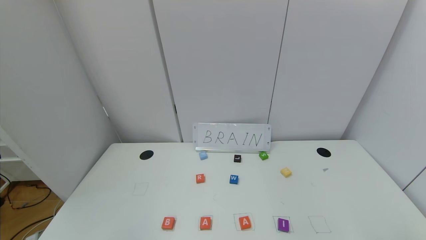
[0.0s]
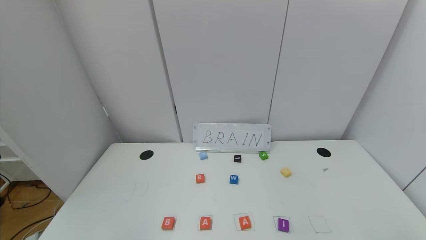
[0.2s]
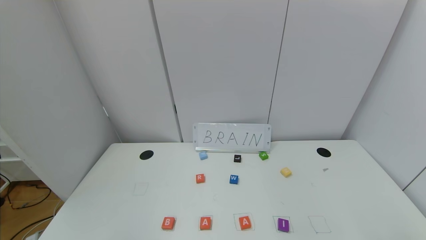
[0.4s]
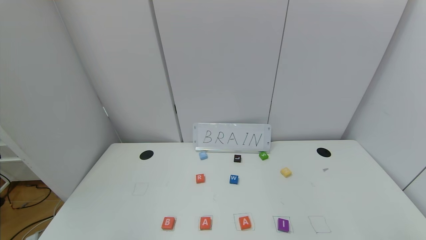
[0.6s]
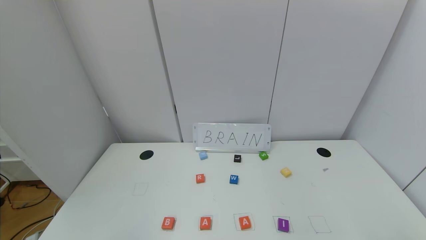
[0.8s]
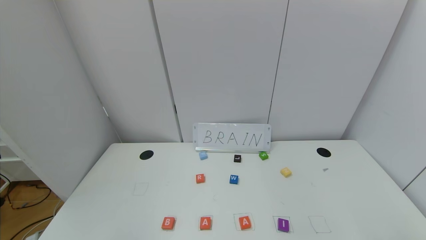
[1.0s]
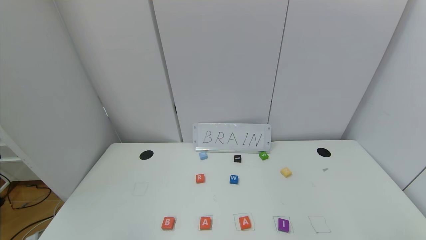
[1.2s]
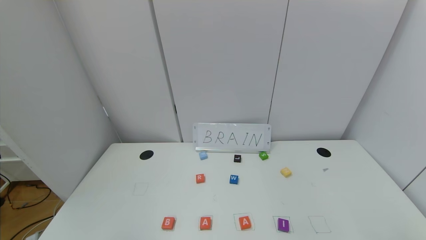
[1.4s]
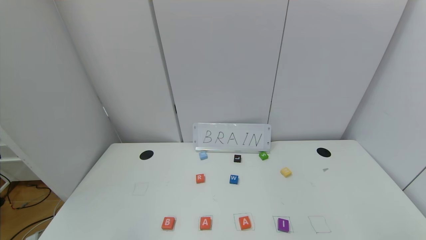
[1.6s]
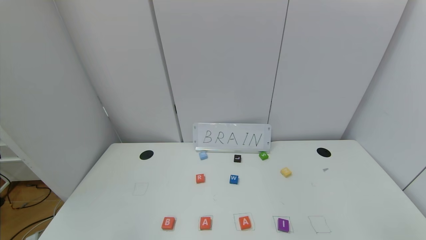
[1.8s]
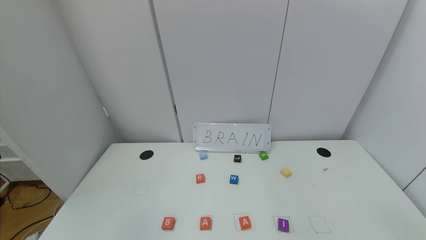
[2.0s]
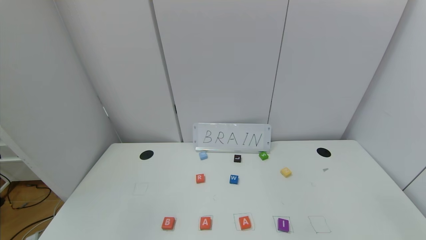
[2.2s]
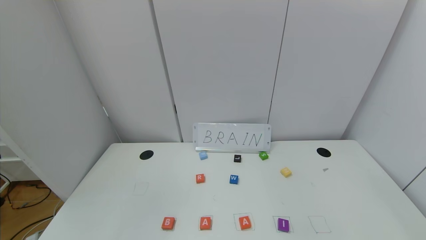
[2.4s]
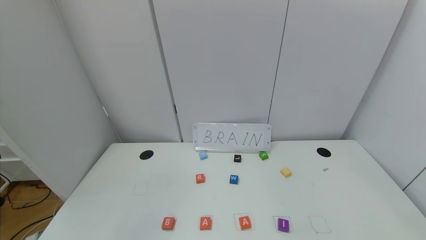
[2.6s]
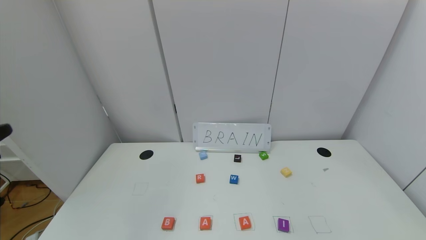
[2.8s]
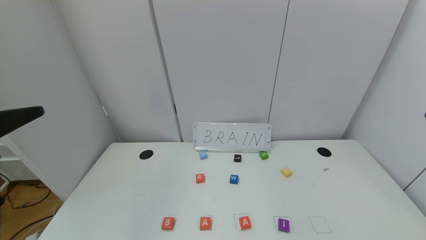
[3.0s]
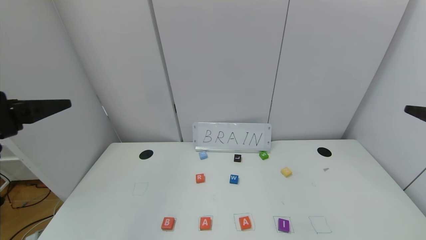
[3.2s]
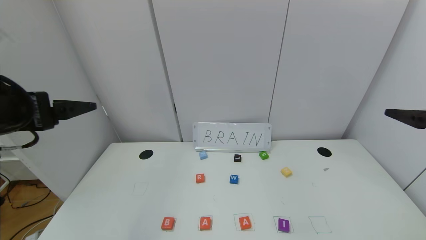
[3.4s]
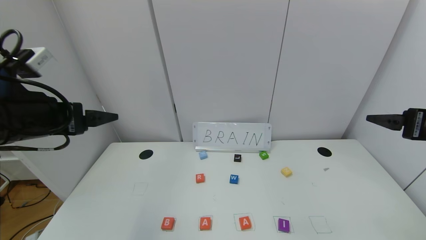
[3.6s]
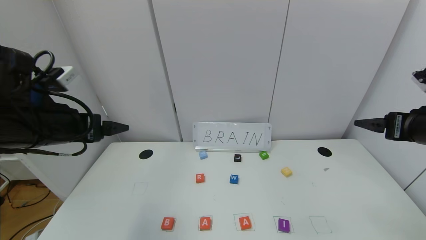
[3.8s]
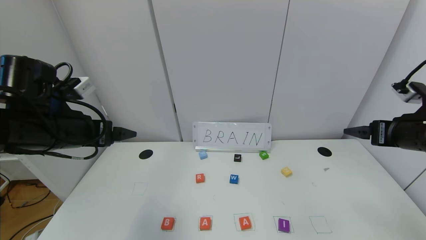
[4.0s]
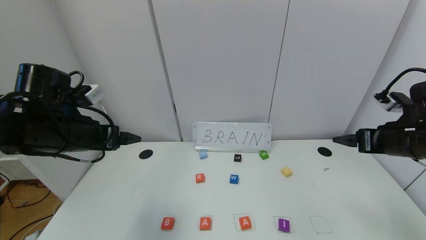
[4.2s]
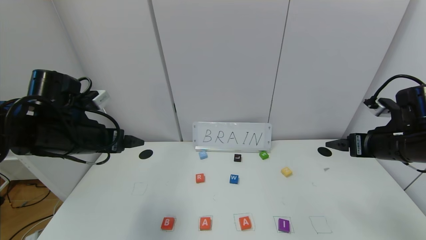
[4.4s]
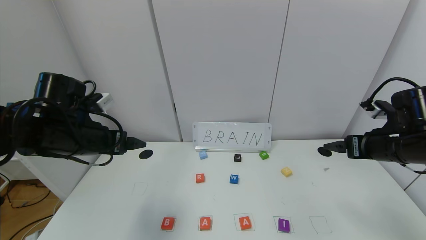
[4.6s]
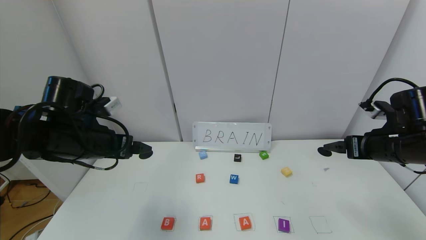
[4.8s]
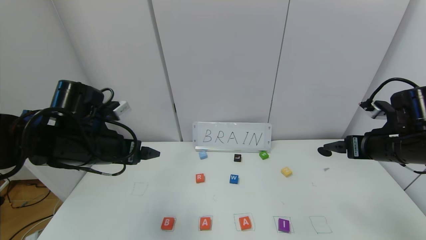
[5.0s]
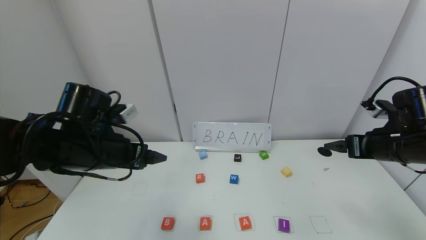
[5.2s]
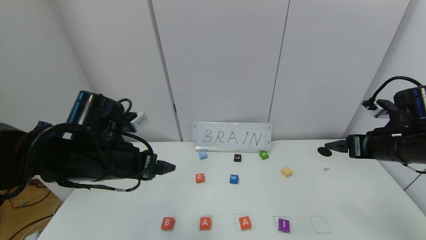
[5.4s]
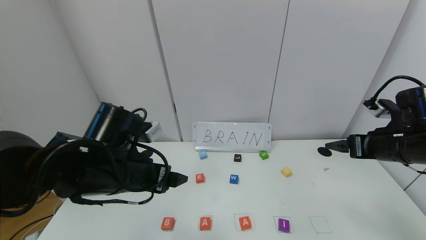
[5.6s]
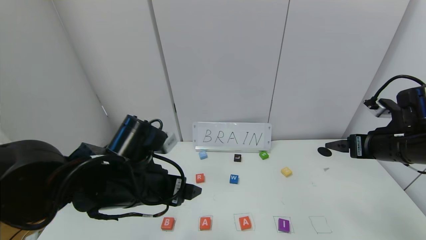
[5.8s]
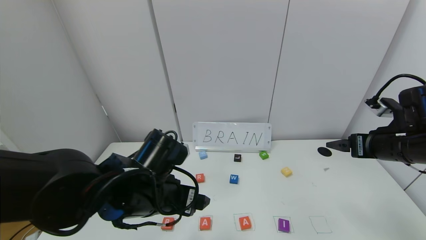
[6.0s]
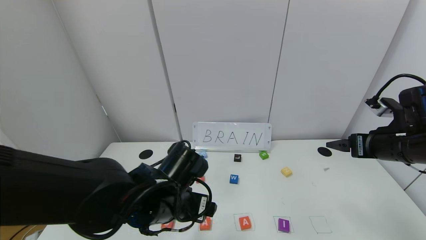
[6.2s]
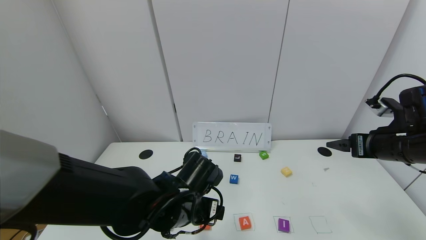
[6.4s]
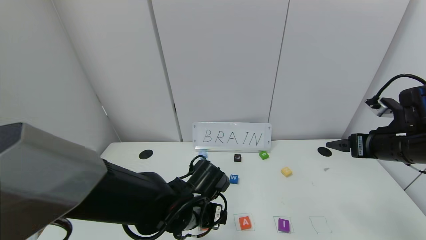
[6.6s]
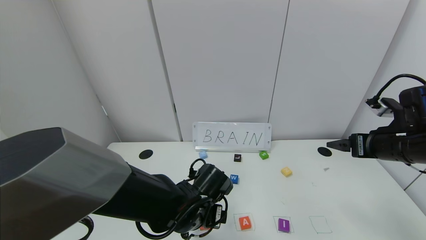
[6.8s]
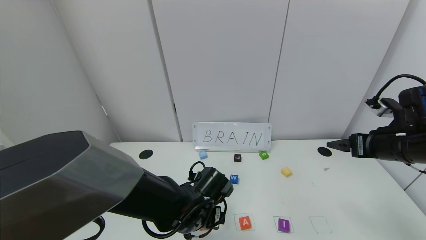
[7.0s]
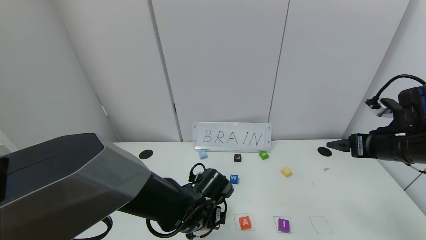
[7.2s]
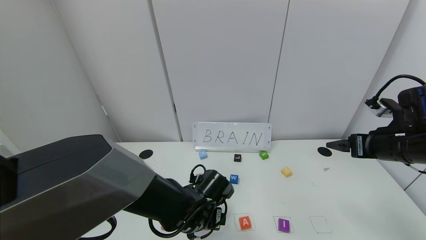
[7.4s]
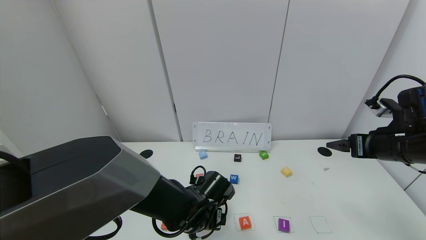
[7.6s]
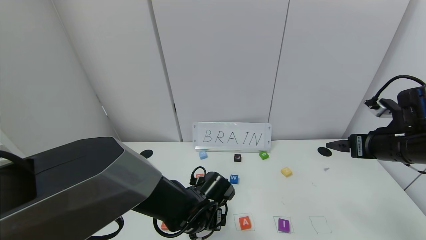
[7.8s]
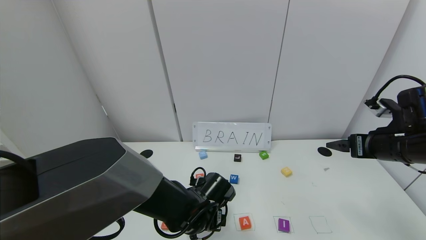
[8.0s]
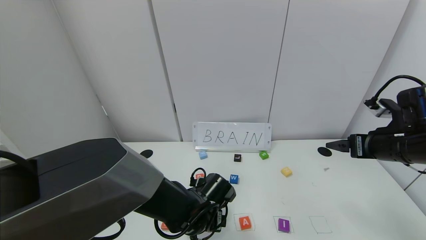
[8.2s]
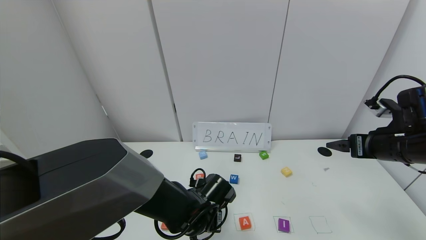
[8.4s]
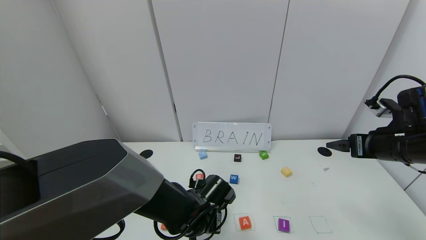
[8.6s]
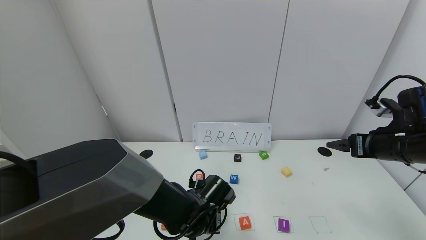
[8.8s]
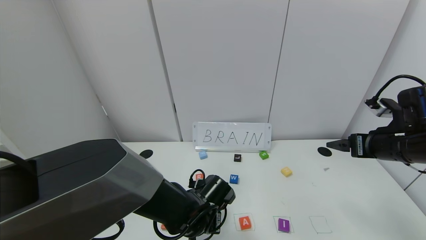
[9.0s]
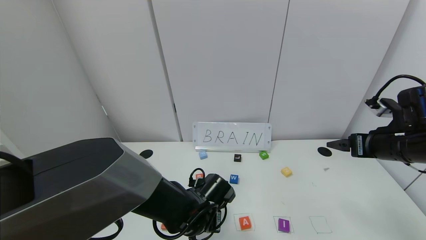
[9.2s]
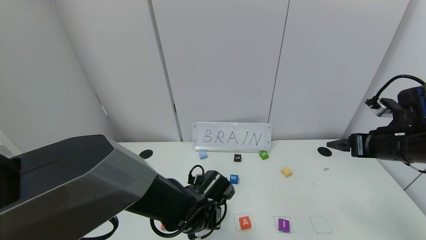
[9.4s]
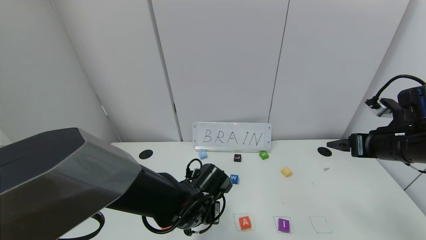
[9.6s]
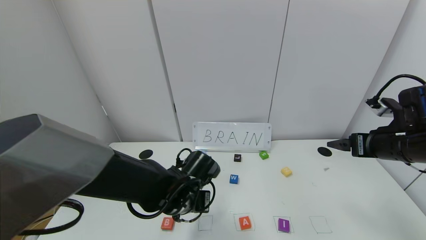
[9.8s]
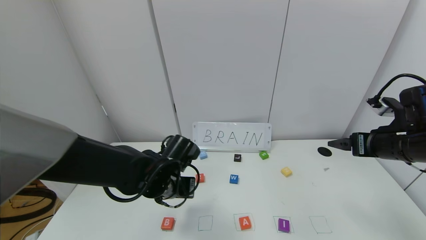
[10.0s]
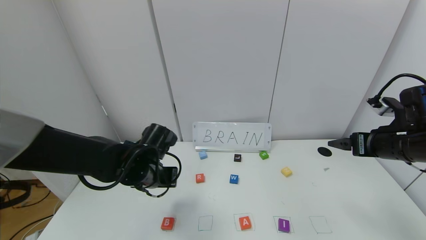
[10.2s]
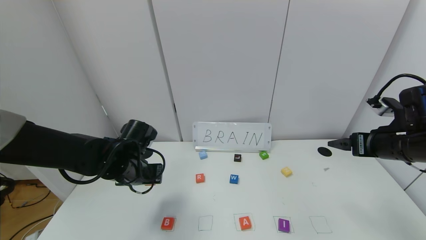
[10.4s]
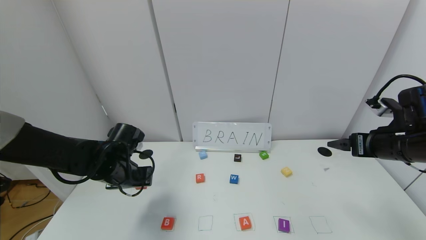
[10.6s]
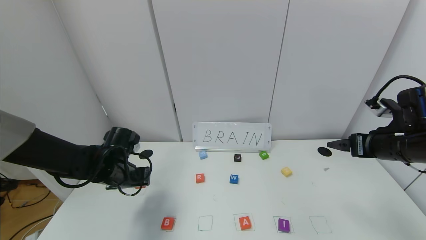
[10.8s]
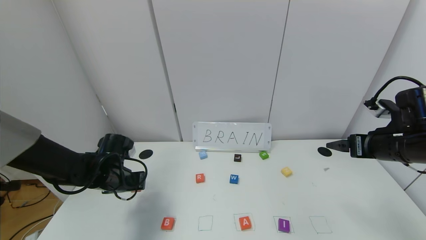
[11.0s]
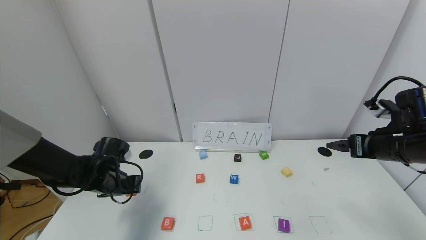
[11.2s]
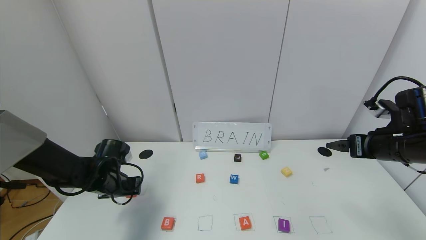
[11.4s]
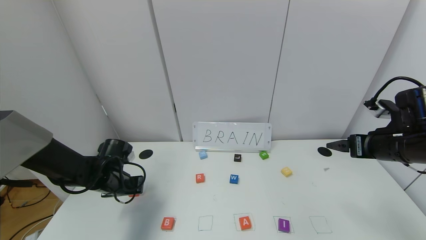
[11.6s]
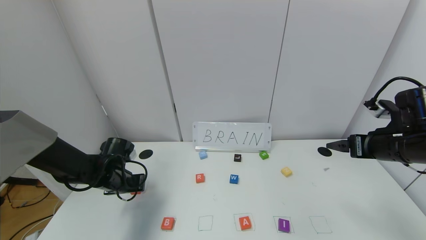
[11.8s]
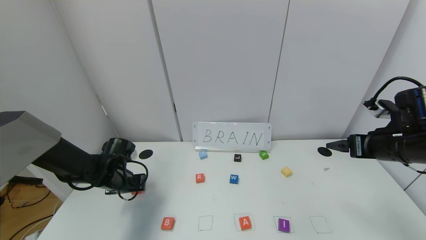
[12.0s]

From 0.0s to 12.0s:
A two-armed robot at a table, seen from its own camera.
Task of the whole recording: use the gripper to find blocks with the letters b, a, a, and i on the table and arrange them into BAAI, then find r and N and turn the arranged baai into brian.
From 1.6s to 3.0s: The left gripper is displaced upward and forward by approximately 25 cm.
From 3.0s to 4.4s: Both grippers travel together forward and downward, some 20 cm.
From 4.4s to 6.0s: The left gripper is displaced to the right and downward by some 15 cm.
From 6.0s to 7.6s: The left gripper is displaced downward and to the right by approximately 15 cm.
From 7.6s to 9.0s: The left gripper closes up.
From 9.0s to 10.4s: The left gripper travels to the left and upward by some 20 cm.
From 10.4s to 12.0s: The left gripper heads downward and to the left, covering roughly 10 cm.

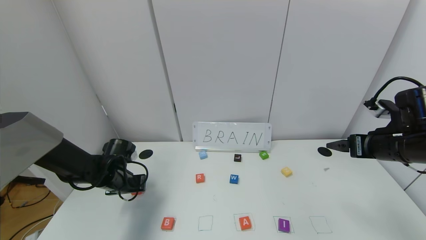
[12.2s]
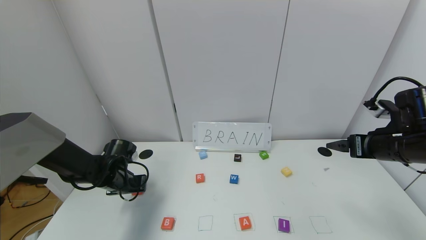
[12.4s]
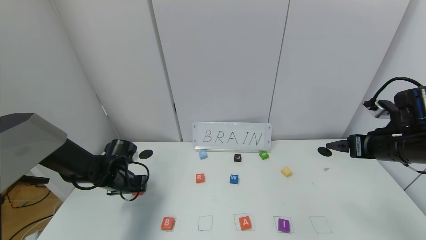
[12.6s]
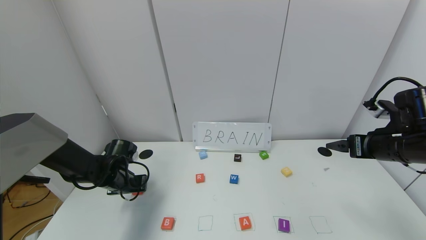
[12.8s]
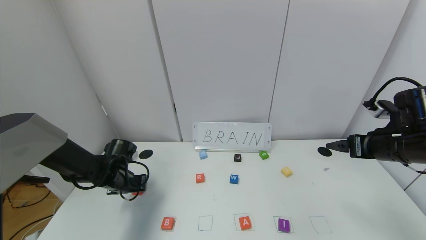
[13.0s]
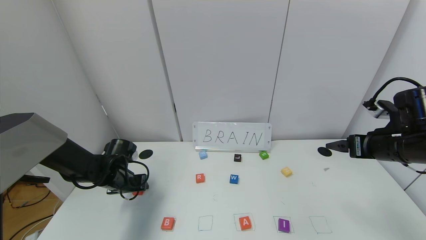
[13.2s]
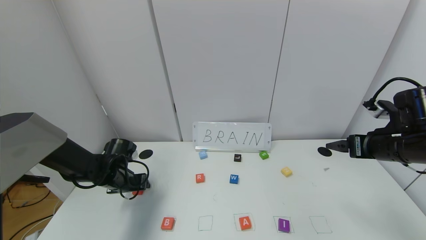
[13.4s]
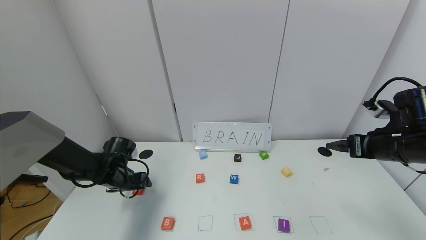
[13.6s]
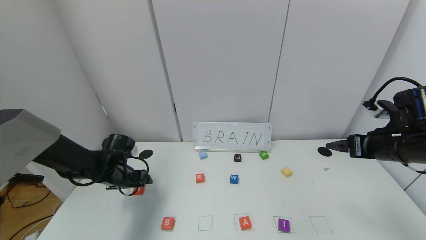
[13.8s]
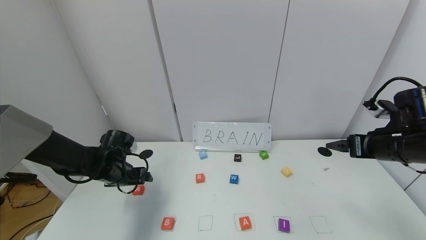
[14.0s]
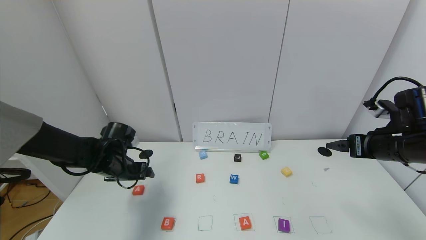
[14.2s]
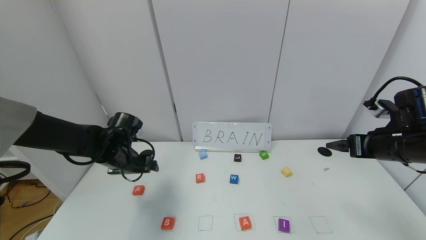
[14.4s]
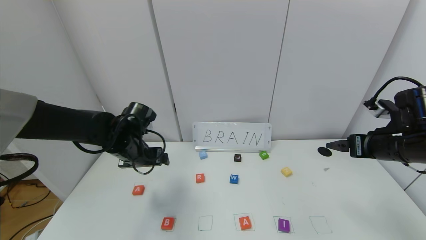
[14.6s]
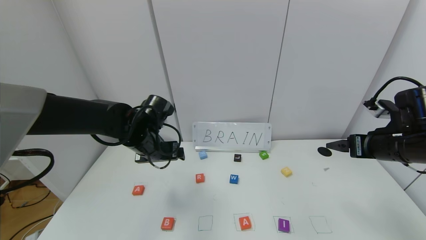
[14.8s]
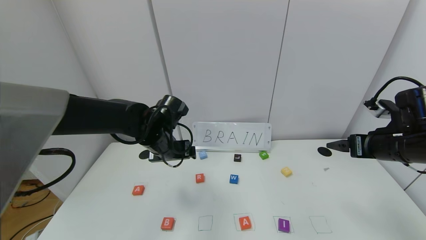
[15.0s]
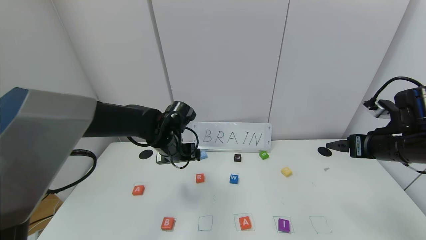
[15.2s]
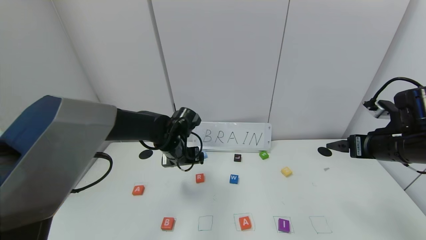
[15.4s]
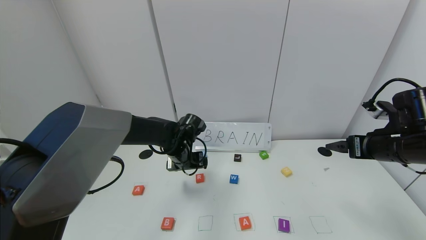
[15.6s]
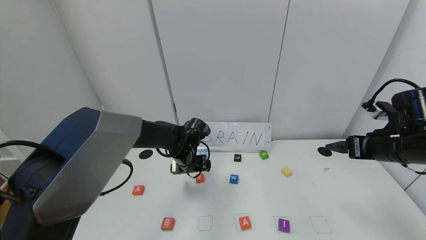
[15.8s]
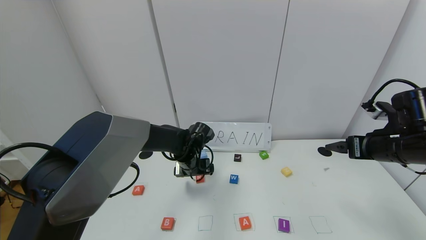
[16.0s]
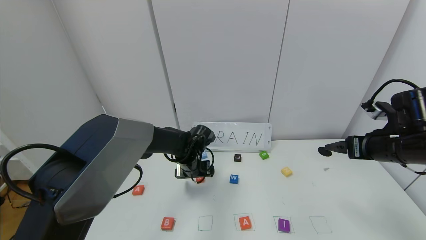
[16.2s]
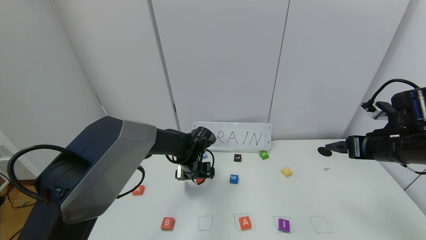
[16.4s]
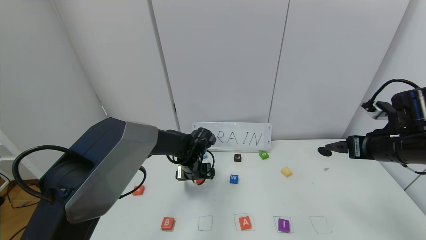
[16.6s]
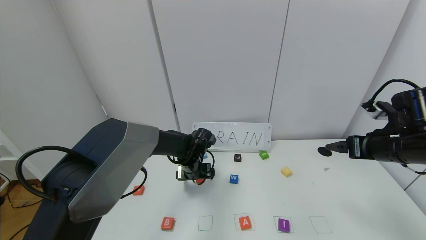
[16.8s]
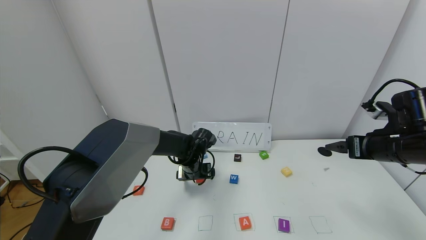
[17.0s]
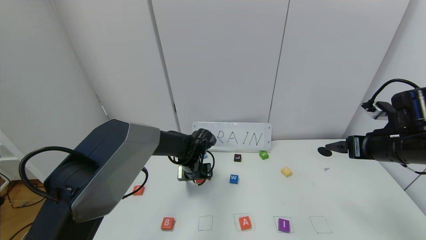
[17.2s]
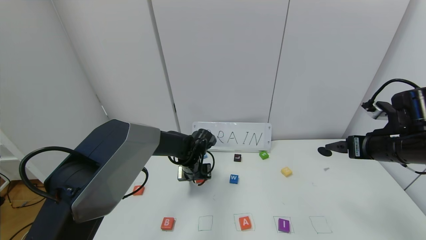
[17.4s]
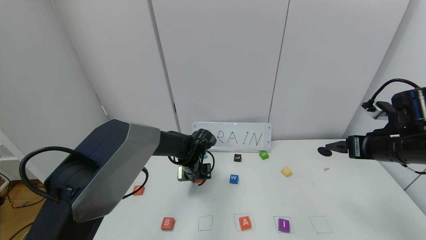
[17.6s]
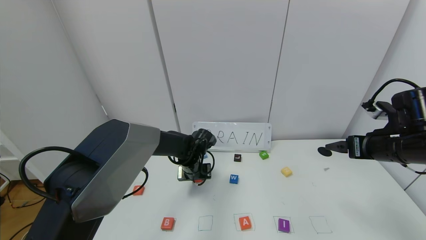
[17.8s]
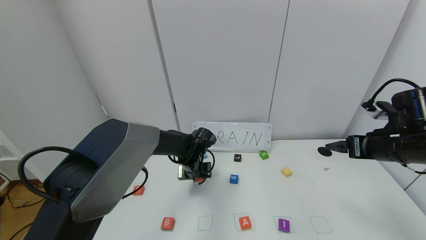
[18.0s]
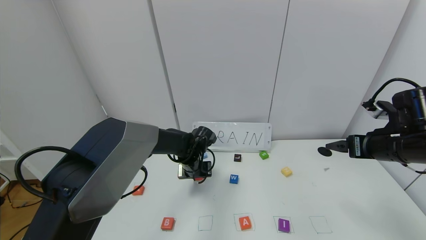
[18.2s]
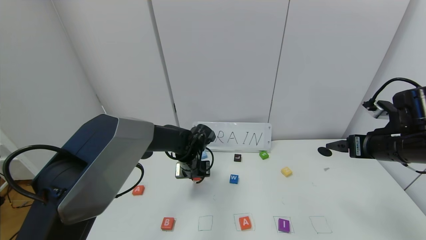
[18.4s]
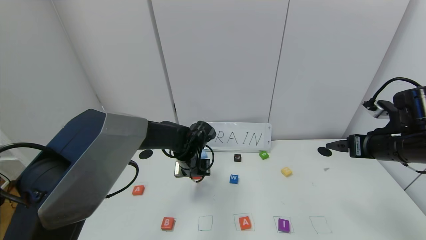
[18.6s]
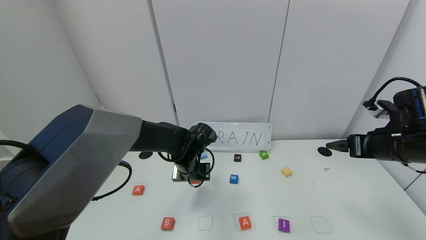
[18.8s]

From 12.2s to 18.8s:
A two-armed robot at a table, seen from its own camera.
Task of the whole recording: use the gripper to find blocks with the letters b, a, a, and i on the table and arrange them into BAAI, then find r and N and turn the arranged baai into brian.
From 12.2s to 13.8s: The left gripper opens up.
From 13.8s to 15.4s: The left gripper travels to the right by some 15 cm.
From 15.4s to 17.2s: The left gripper moves downward, roughly 5 cm.
From 17.2s to 18.8s: The left gripper shifts by approximately 5 cm, and closes up.
